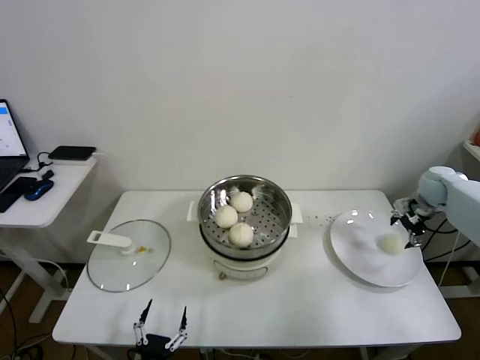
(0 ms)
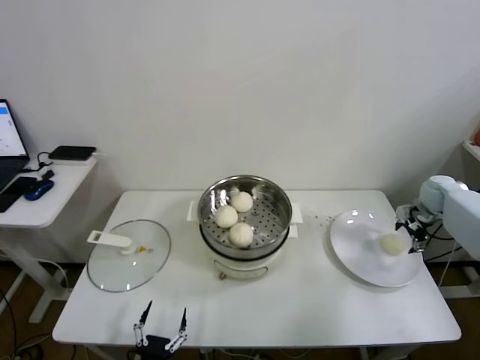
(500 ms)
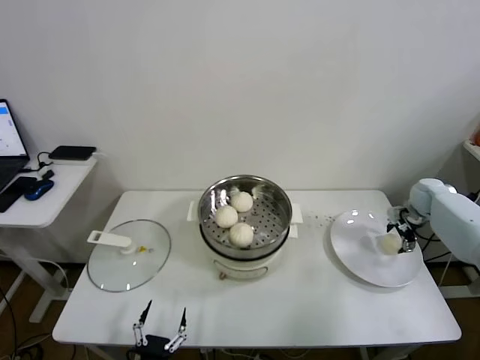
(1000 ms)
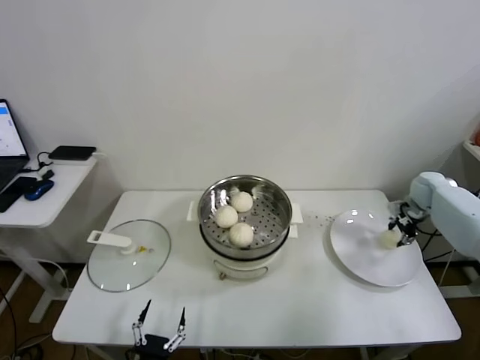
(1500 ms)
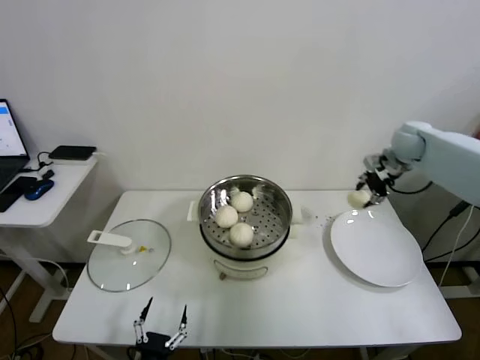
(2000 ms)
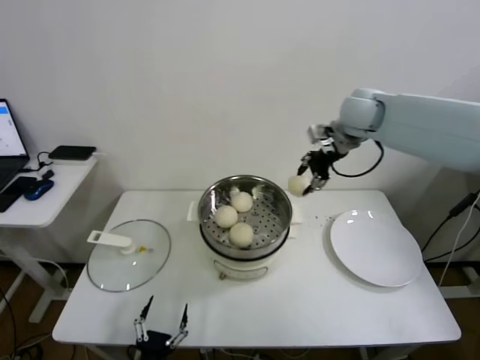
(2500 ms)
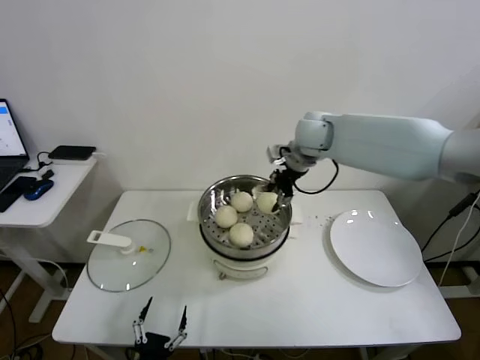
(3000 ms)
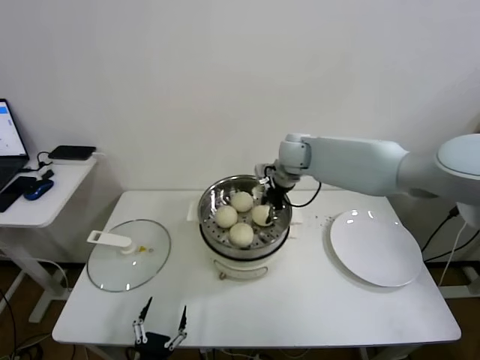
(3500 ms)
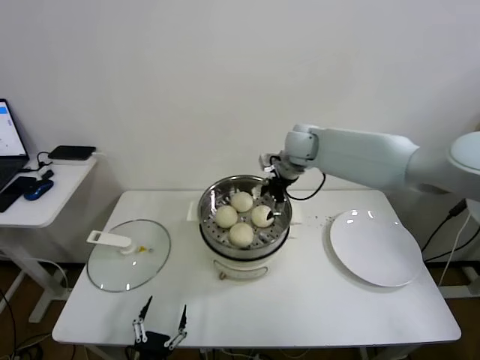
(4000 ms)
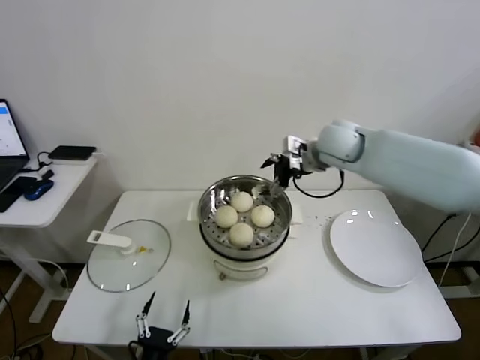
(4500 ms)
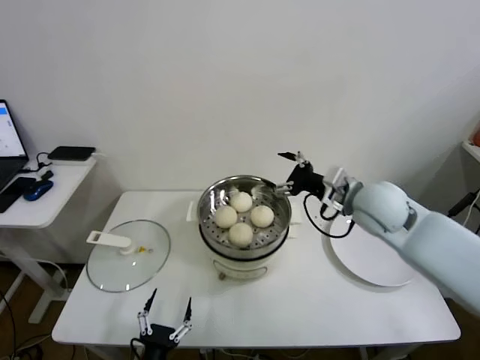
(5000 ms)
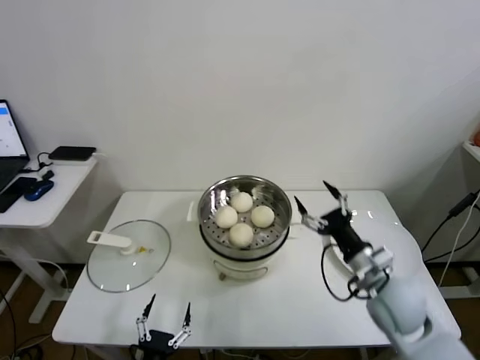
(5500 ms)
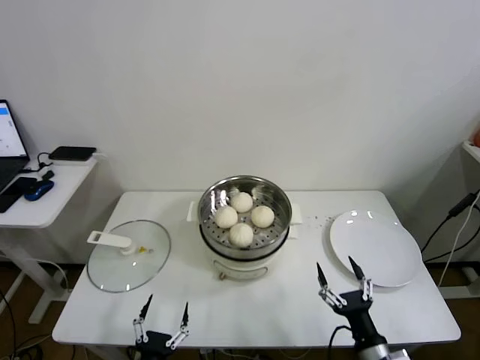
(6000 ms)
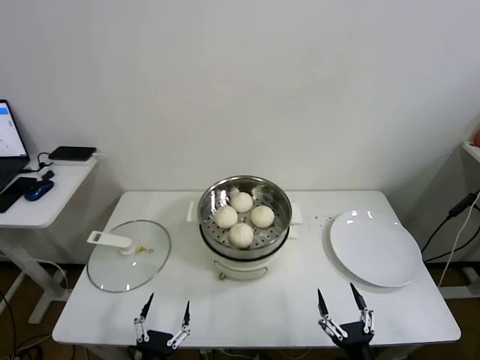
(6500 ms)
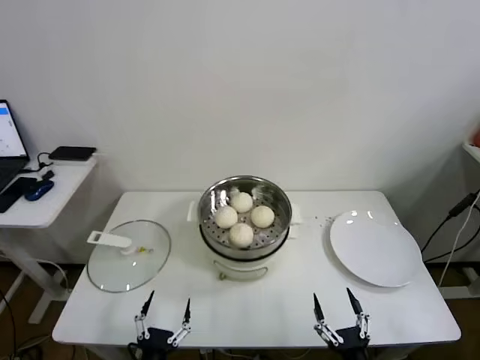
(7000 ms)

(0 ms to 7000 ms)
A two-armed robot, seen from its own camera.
Task of the whole recording: take steamed baozi put them in steamer.
Step, 1500 ms - 3500 ms: Place the baozi on the steamer with right gripper.
0 ms - 2000 ms: The right gripper shifts roughly 15 cm upward and to the left, and closes its fingers.
2000 ms - 3500 ms: The right gripper is displaced to the left by about 30 cm.
3500 ms - 5000 ms: The right gripper goes approximately 20 cm backward and to the right, and opens.
5000 ms - 7000 ms: The right gripper heads backward and downward, covering approximately 50 cm.

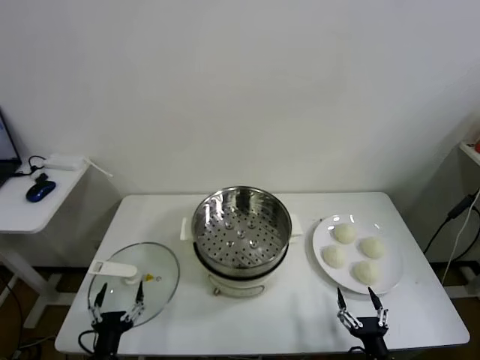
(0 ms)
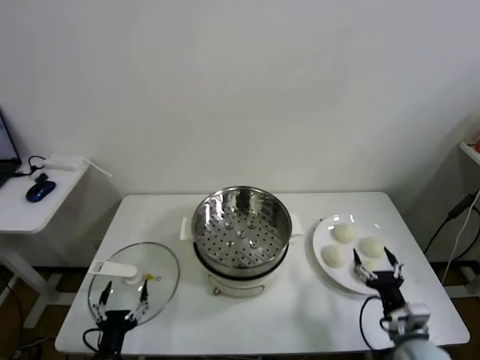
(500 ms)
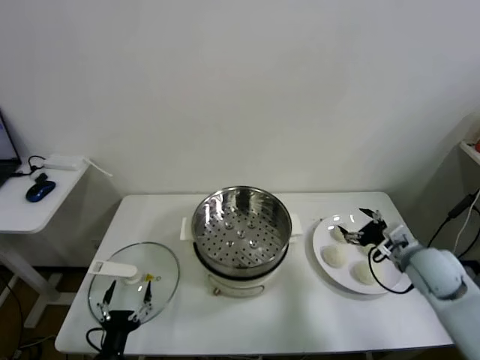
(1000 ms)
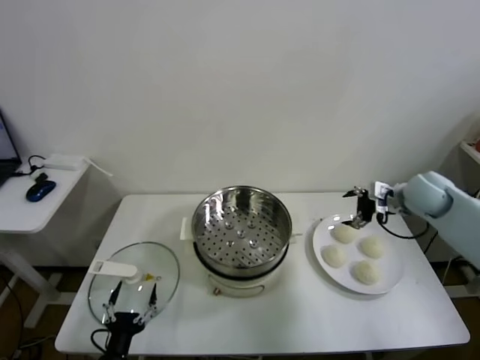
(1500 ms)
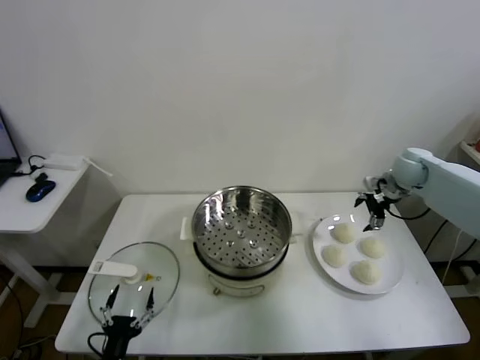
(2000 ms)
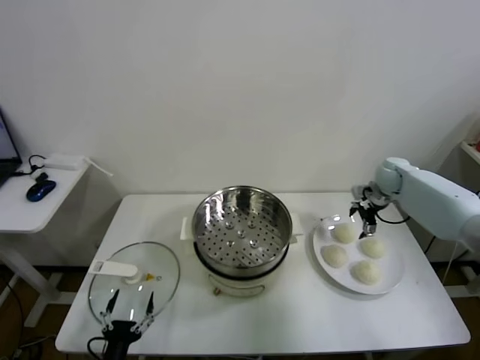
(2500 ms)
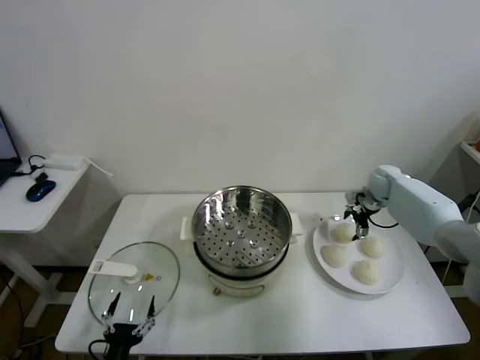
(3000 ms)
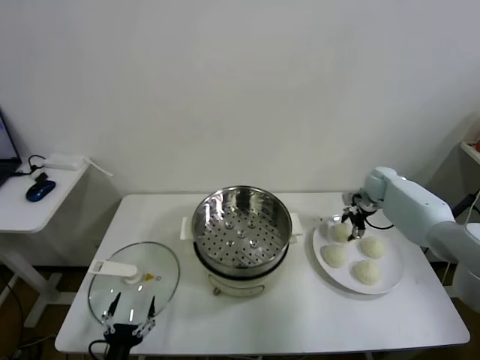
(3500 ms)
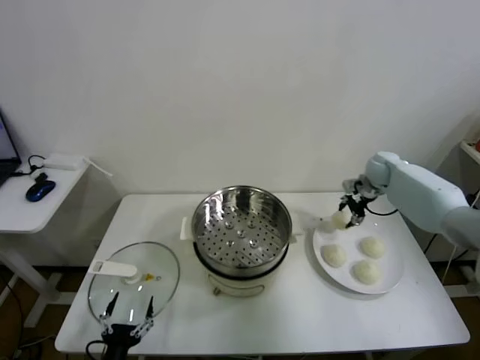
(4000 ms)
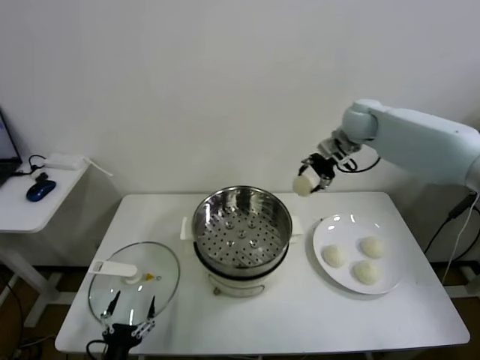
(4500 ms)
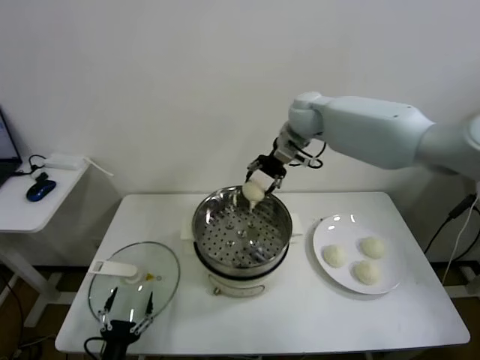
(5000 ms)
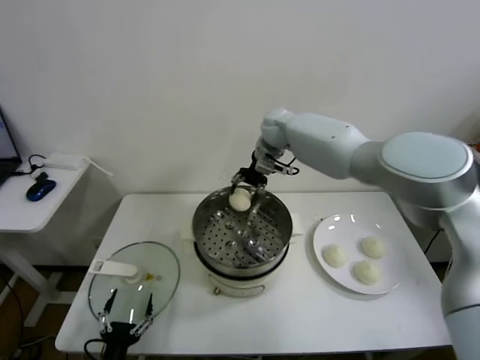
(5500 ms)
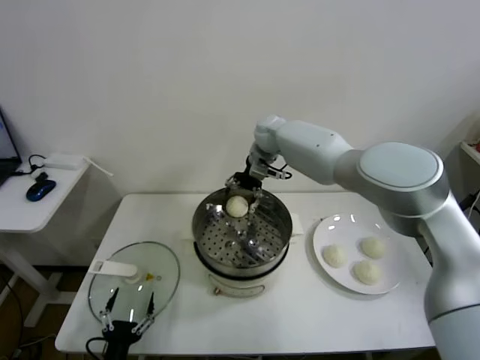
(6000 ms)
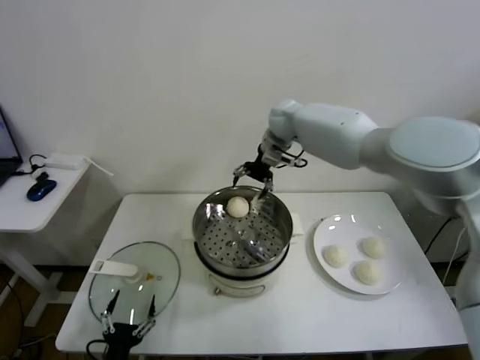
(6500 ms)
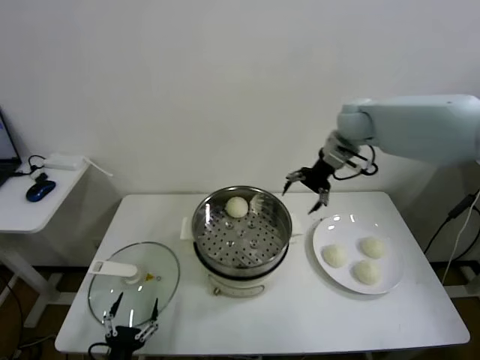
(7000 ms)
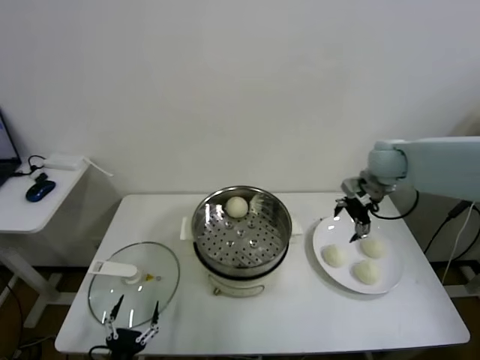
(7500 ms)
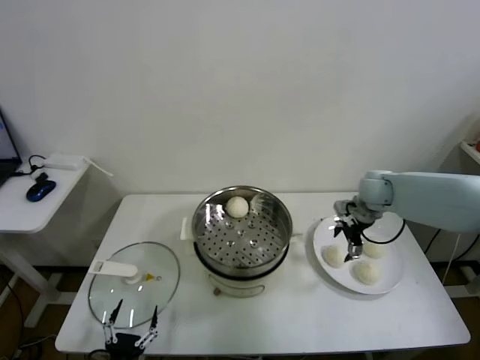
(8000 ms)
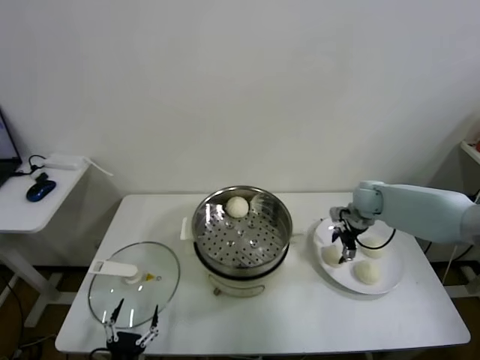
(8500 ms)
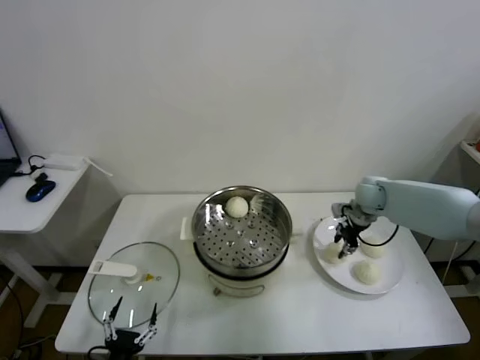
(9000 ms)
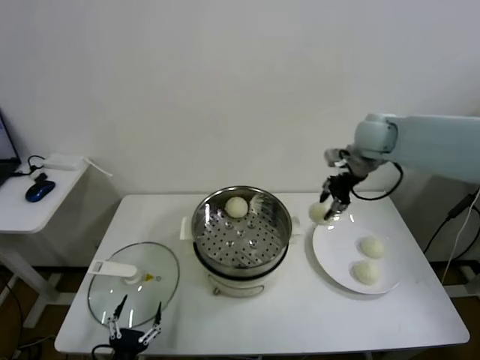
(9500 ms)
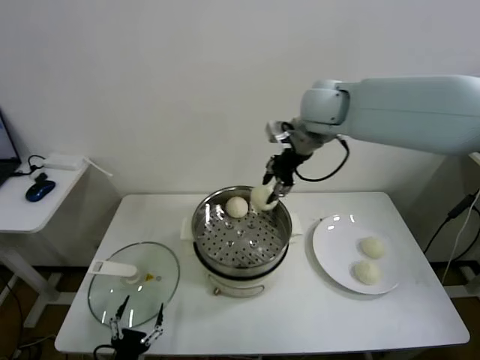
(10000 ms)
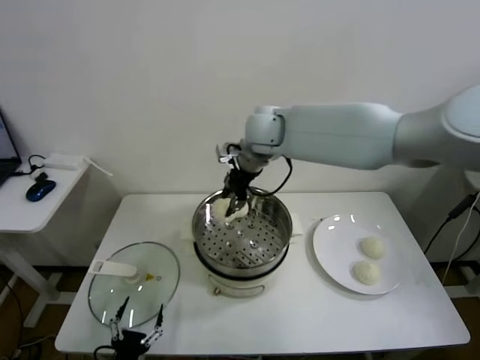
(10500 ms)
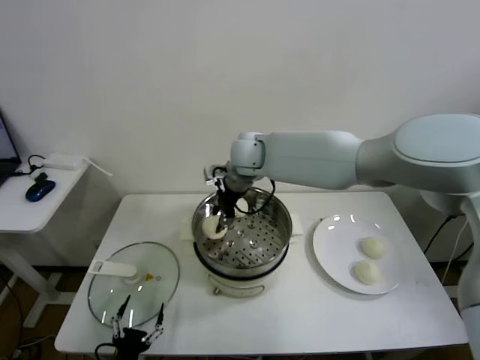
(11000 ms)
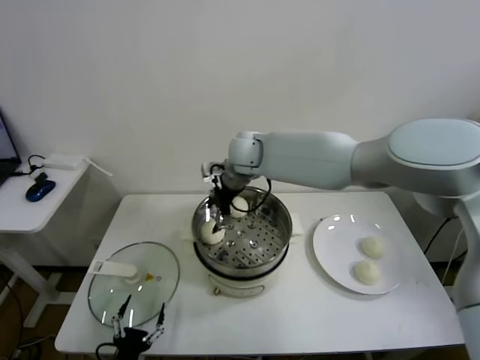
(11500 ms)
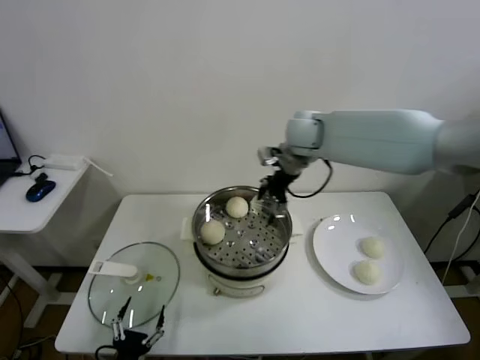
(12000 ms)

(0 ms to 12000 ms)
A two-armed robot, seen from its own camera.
Task of the whole recording: take steamed baozi put them in steamer.
Step, 0 ms - 3500 ms: Grasp the baozi in the plate with right gripper.
Step, 4000 ms - 6000 ms: Place the baozi on the steamer with right gripper.
Step, 6500 ms - 8500 ms: Grasp the baozi in the plate with right gripper.
Step, 9000 ms - 11500 ms: Place the baozi on the steamer with right gripper.
2000 ms - 4000 ms: The right gripper goes approximately 5 cm forward, travels downward and back again, some 10 cm each way, and closes.
4000 ms - 6000 ms: The right gripper goes approximately 30 cm to the left, and opens up.
6000 ms - 8000 ms: The right gripper heads to the right and backward, covering about 30 cm.
8000 ms - 10000 ms: The right gripper is displaced upward and to the left by approximately 30 cm, and closes.
10000 ms - 12000 ms: The right gripper heads downward, covering some 10 cm, travels to the left and back again, roughly 15 cm each way, and opens.

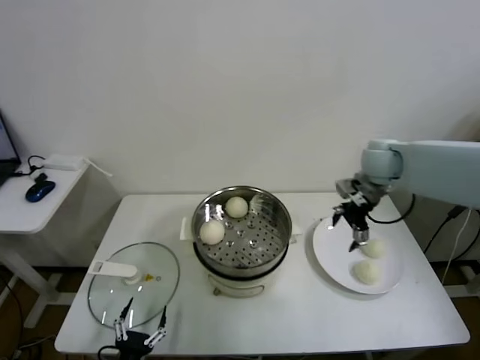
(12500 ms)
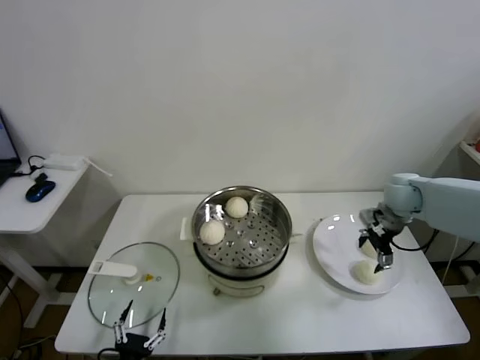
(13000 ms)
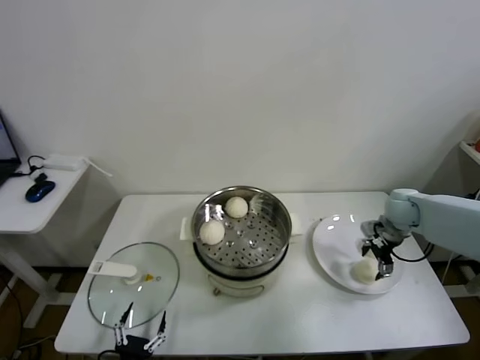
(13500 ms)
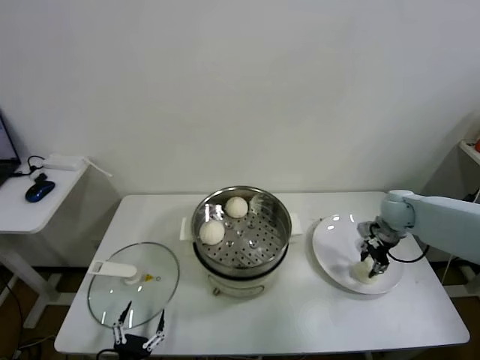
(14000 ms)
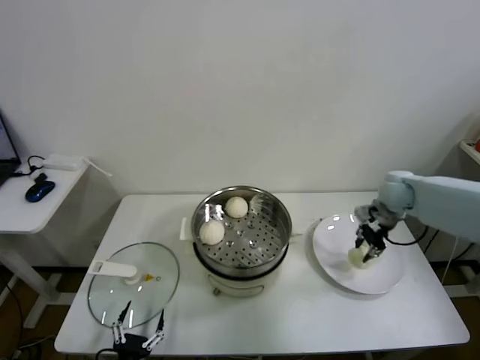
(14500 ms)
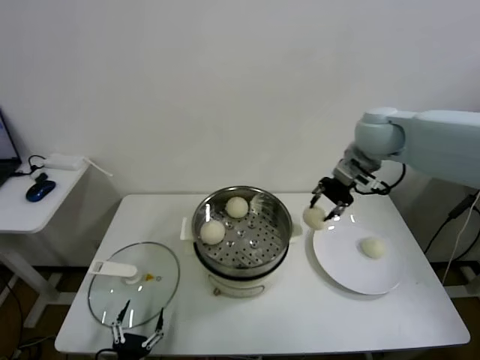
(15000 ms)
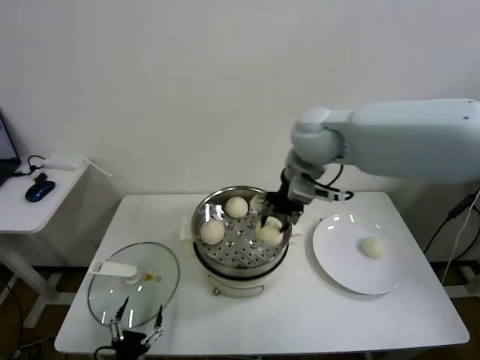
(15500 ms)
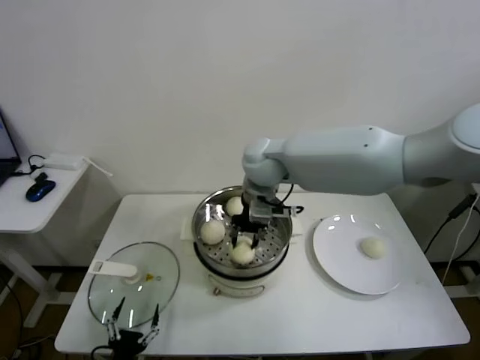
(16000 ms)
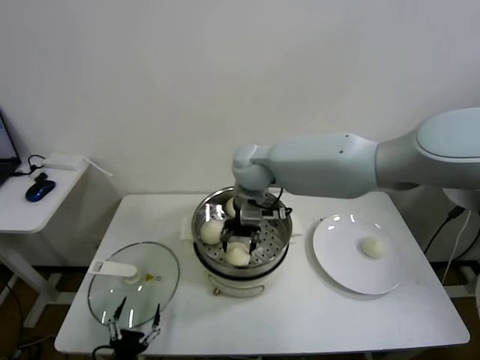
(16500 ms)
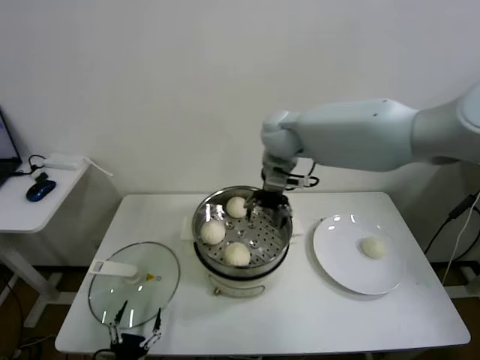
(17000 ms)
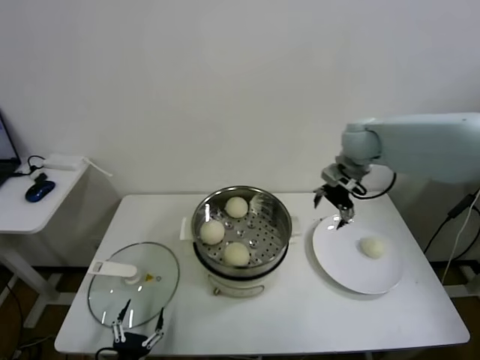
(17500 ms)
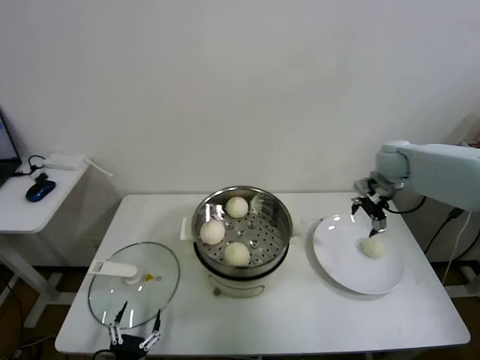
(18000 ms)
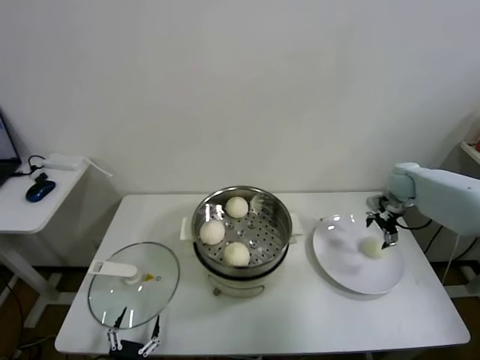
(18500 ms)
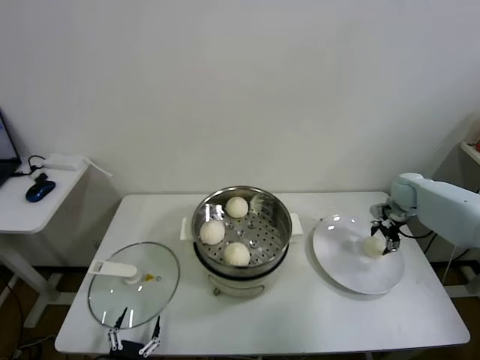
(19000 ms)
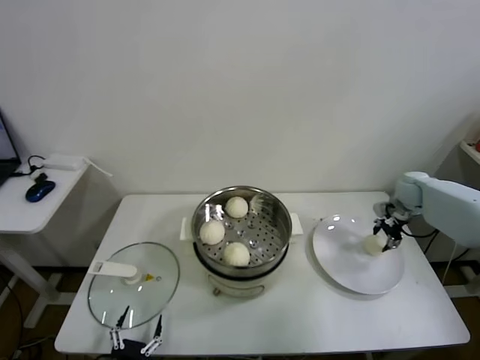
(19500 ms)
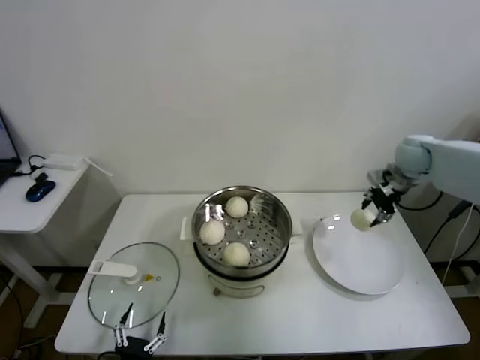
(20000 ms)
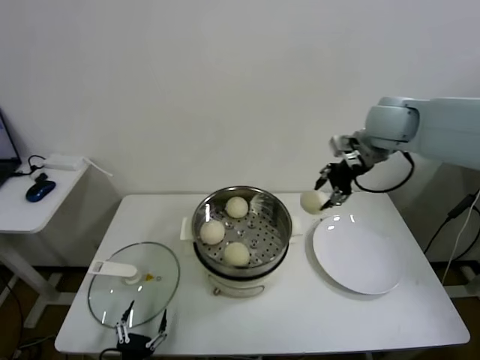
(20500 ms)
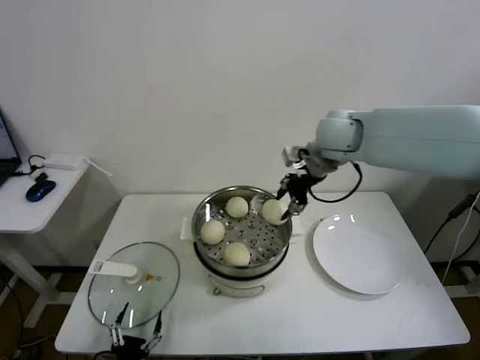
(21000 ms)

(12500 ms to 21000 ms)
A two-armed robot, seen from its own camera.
Task of the whole recording: take steamed baozi put them in steamer.
Step, 12500 ms - 14000 ms: Grasp the baozi in the plate with right gripper.
Step, 14500 ms - 16500 ms: Place the baozi on the steamer with right gripper.
Step, 17000 ms - 19000 ms: Grasp the baozi in the plate with right gripper.
12500 ms - 14500 ms: The right gripper is displaced downward and to the right by about 10 cm, and closes its fingers.
14500 ms - 16500 ms: The right gripper moves to the left, roughly 35 cm, and opens.
16500 ms - 19000 ms: The right gripper travels to the right by roughly 40 cm.
19000 ms - 21000 ms: The right gripper heads to the left and upward, covering roughly 35 cm, and closes.
